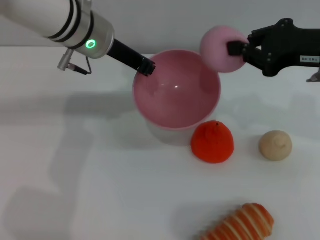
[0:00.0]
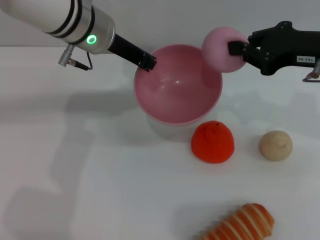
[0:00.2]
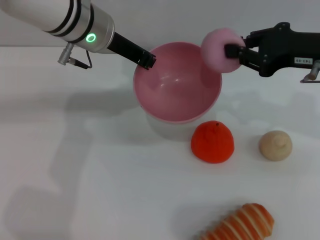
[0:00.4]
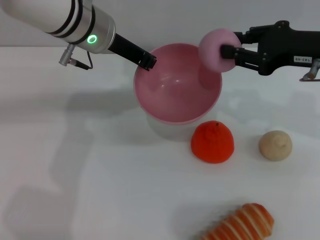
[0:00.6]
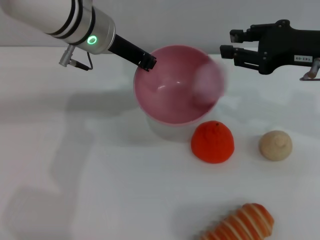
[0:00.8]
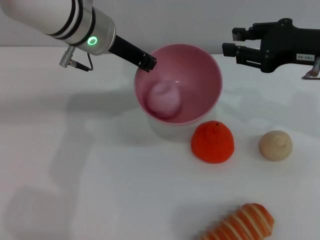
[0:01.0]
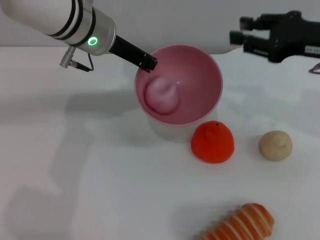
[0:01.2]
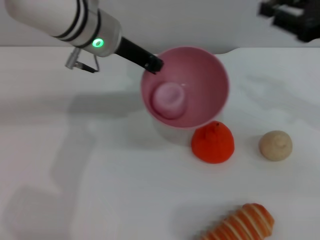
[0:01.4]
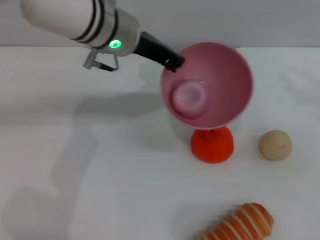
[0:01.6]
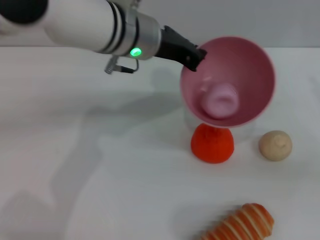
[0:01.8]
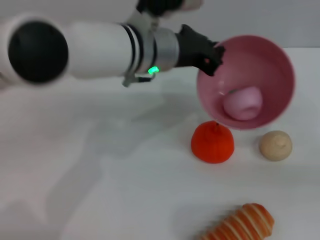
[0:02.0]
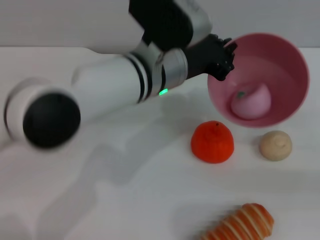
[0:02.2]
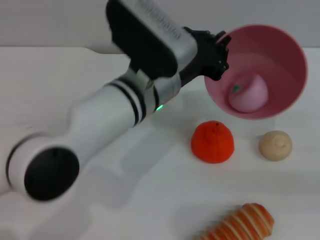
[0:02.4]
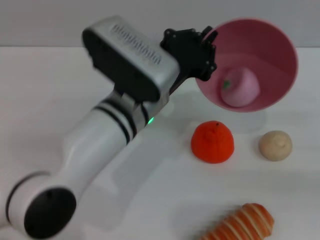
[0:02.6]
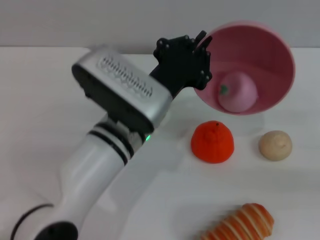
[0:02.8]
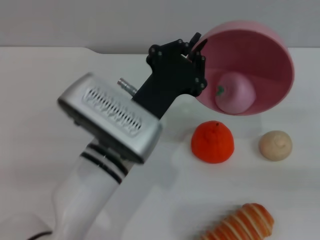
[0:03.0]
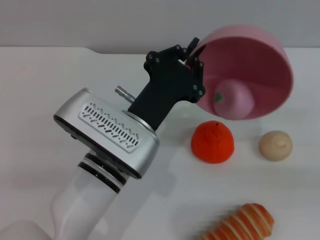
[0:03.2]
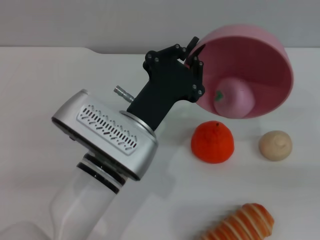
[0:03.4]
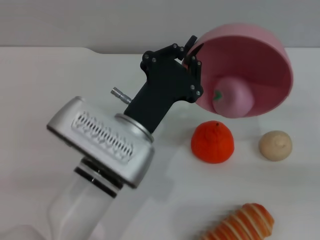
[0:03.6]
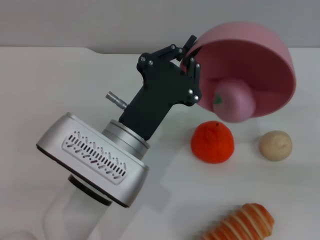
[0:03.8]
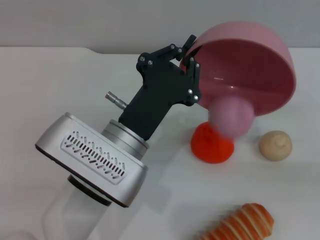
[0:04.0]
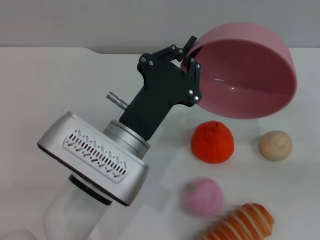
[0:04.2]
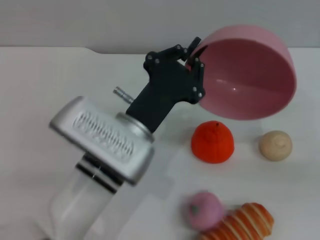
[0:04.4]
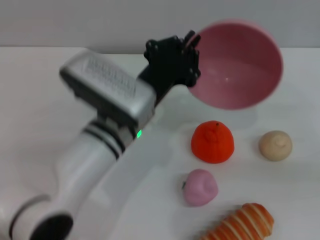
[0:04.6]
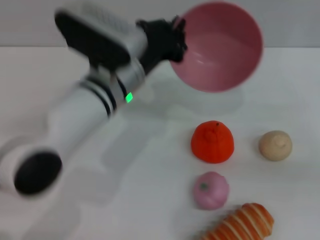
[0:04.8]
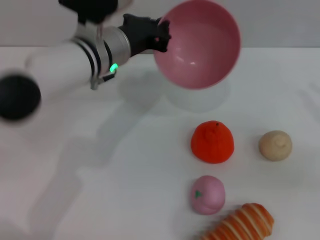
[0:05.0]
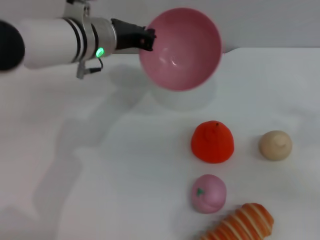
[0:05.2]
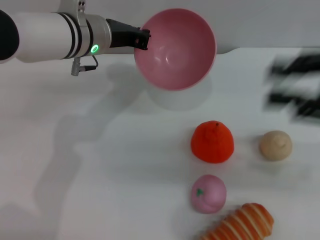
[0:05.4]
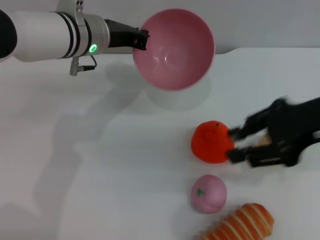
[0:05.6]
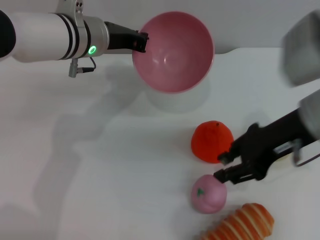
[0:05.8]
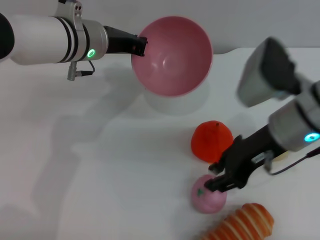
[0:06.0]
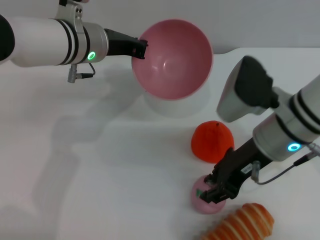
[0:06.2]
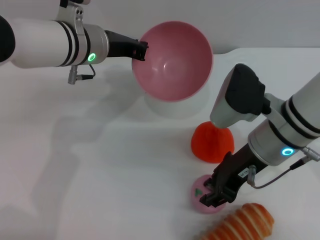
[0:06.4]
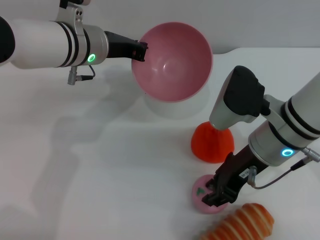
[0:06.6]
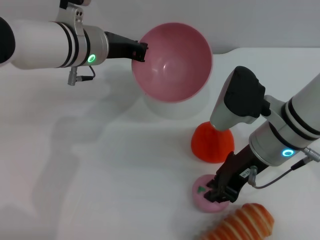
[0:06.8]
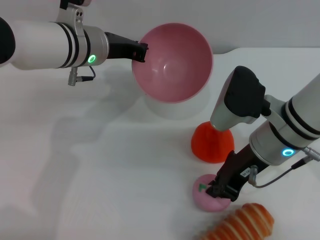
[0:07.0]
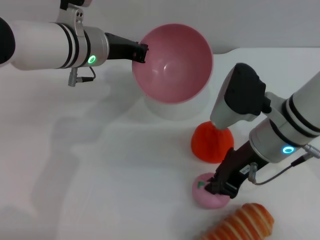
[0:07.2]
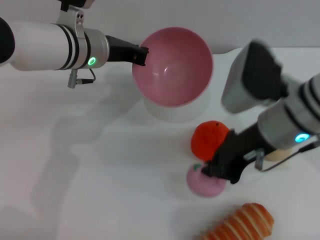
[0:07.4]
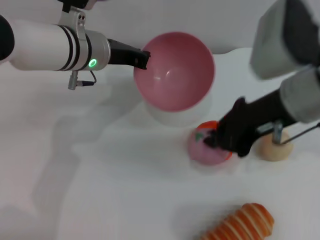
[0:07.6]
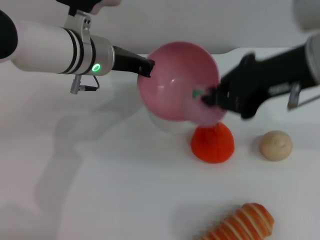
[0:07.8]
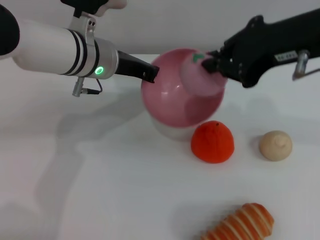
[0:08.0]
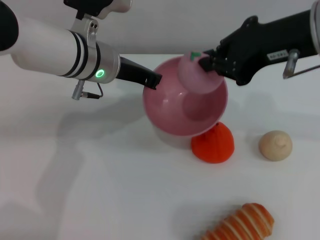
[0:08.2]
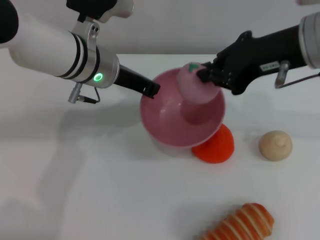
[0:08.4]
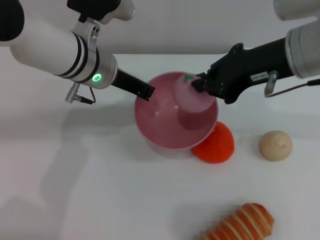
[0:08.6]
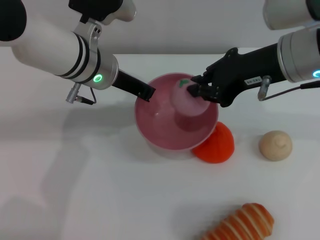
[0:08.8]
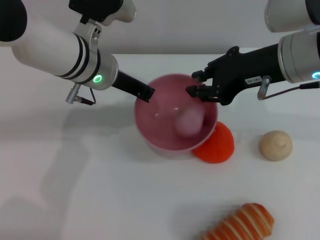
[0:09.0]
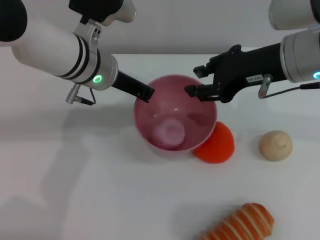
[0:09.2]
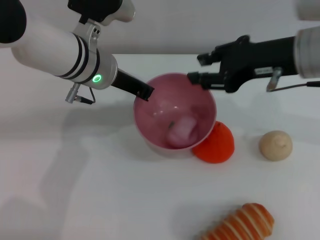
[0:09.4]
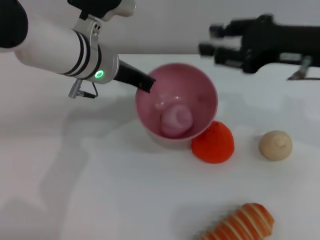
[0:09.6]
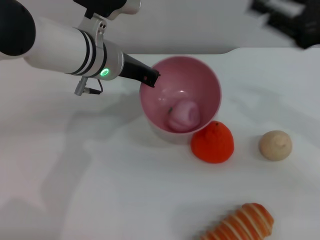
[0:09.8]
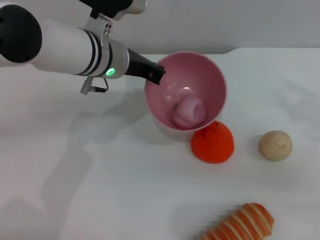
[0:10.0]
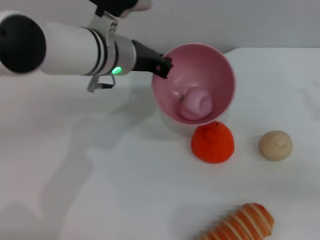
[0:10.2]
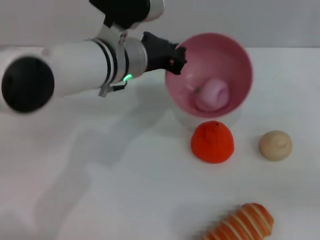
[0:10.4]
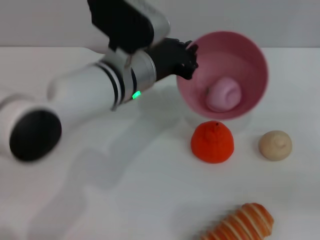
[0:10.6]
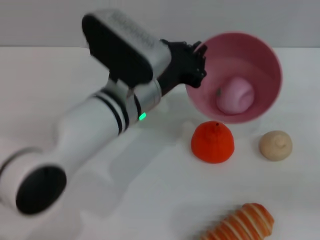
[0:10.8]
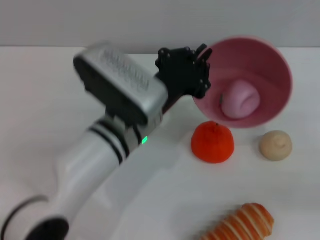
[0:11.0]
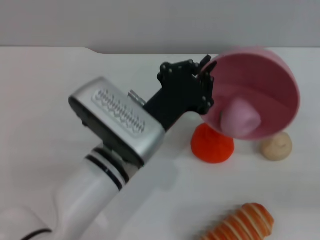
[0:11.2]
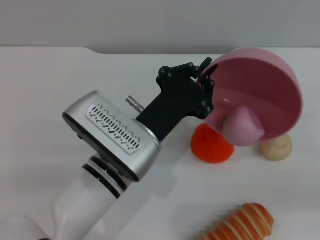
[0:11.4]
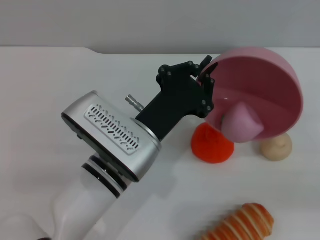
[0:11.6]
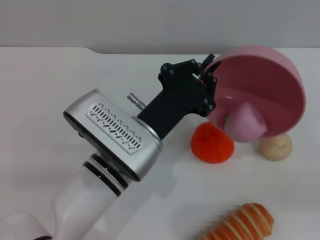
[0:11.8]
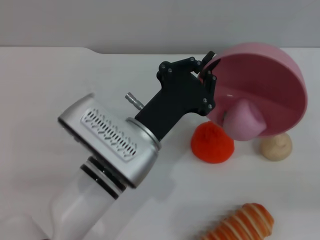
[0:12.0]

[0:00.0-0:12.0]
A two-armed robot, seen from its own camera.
Task of the whole recording: put the peach into the pink bowl and pour it out repeatedly.
Step, 0.0 to 1.0 s: Place the peach into the bowl.
Step, 1.2 to 4.4 s: Pour the peach out of bowl.
Step, 4.6 to 7.6 s: Pick up the peach with the right gripper.
Step, 7.8 to 9.0 s: Place the peach into the bowl.
0.0 to 1.6 s: The right gripper heads to the right, covering approximately 10 cm, and opens.
1.6 to 3.0 s: The right gripper shifts some 5 cm to the right, while the left gripper goes roughly 15 cm backward and downward.
3.0 to 4.4 s: The grippers stay close to where they were, moving slightly.
4.4 to 6.0 s: The left gripper heads forward and upward, covering approximately 20 cm; the right gripper travels to the left by roughly 25 cm.
6.0 to 7.6 s: The right gripper shifts some 5 cm upward, and closes.
9.0 to 10.4 s: The right gripper travels to the right, downward and backward by roughly 25 cm, and opens.
10.4 to 12.0 s: The left gripper is displaced backward and downward by roughly 15 cm.

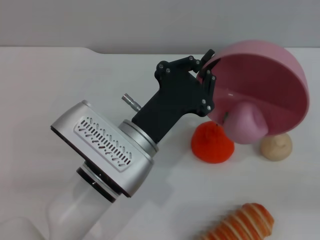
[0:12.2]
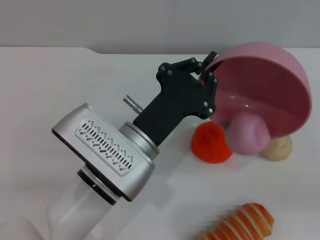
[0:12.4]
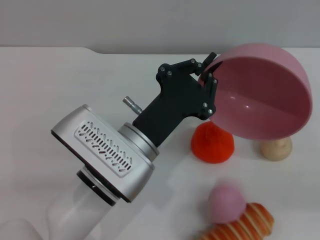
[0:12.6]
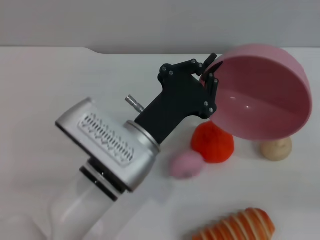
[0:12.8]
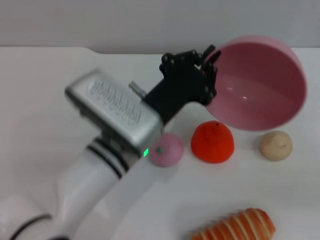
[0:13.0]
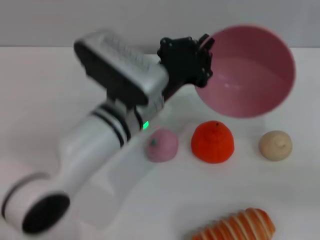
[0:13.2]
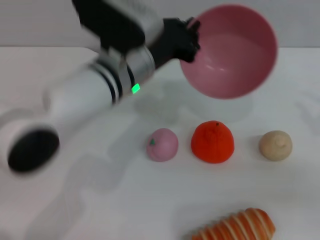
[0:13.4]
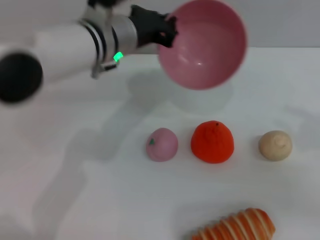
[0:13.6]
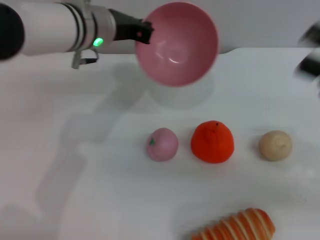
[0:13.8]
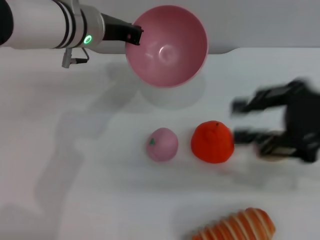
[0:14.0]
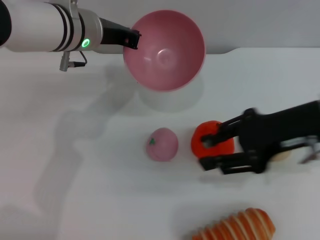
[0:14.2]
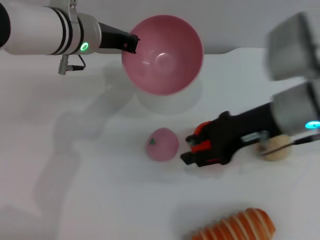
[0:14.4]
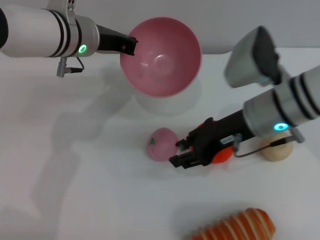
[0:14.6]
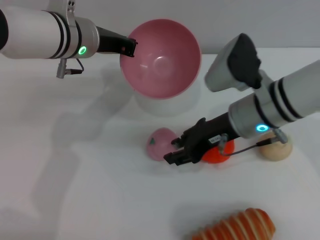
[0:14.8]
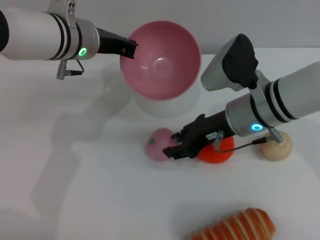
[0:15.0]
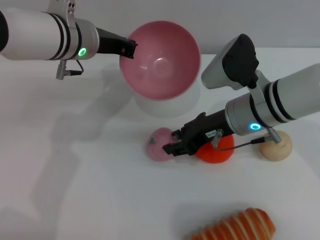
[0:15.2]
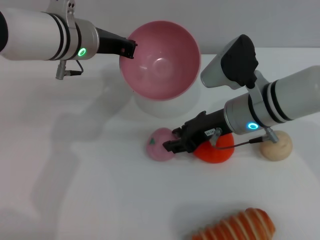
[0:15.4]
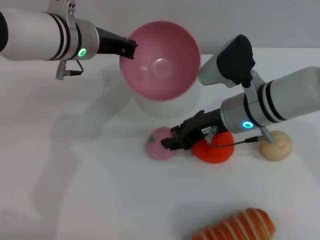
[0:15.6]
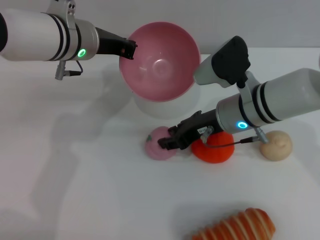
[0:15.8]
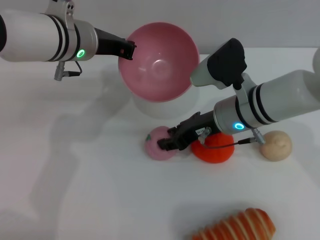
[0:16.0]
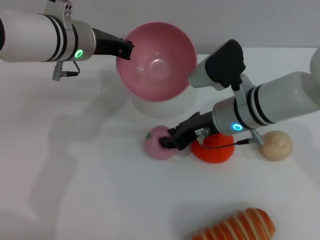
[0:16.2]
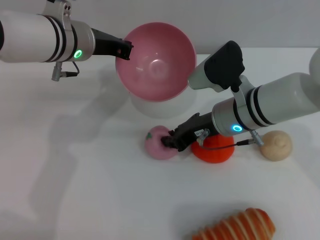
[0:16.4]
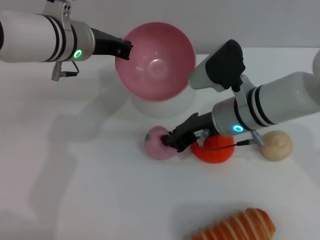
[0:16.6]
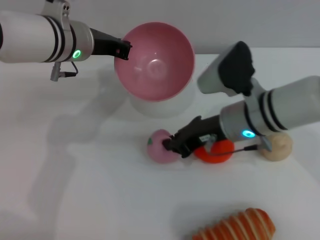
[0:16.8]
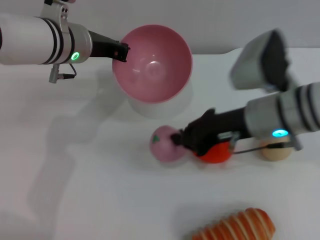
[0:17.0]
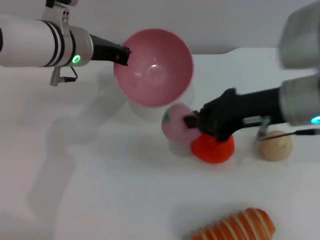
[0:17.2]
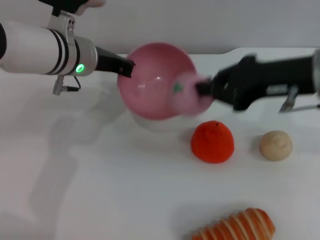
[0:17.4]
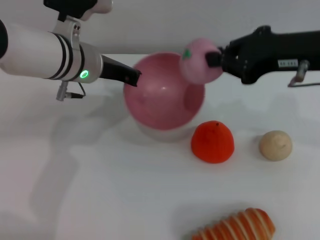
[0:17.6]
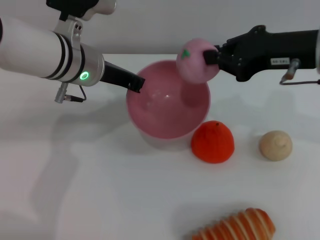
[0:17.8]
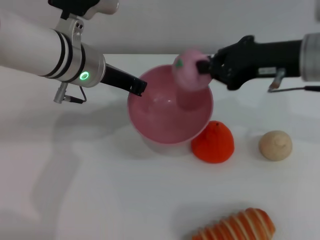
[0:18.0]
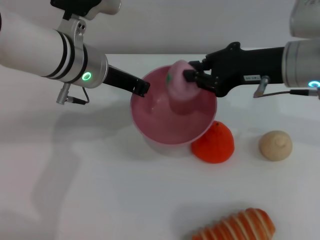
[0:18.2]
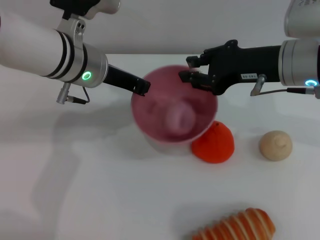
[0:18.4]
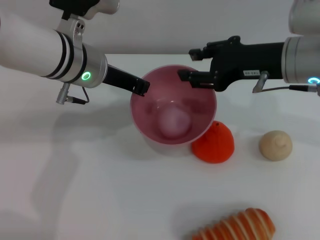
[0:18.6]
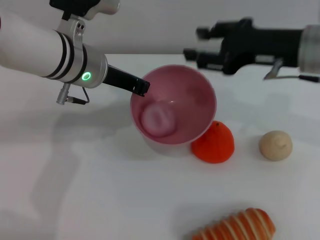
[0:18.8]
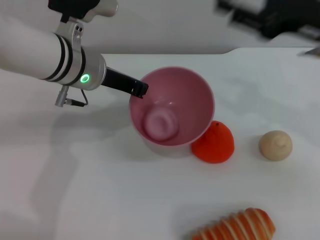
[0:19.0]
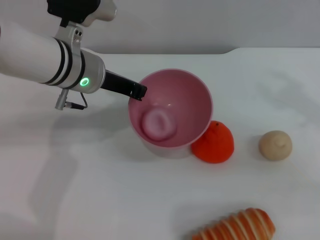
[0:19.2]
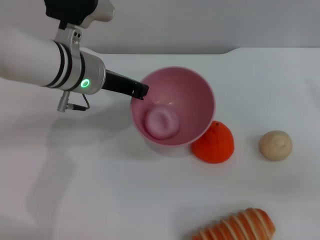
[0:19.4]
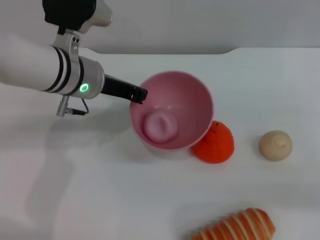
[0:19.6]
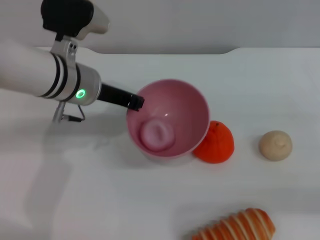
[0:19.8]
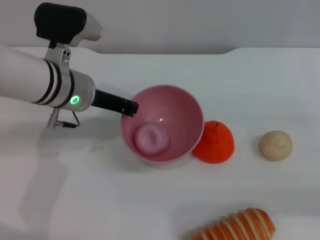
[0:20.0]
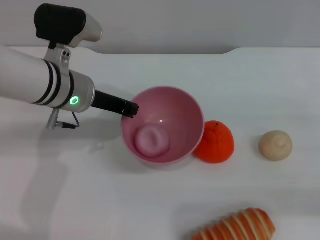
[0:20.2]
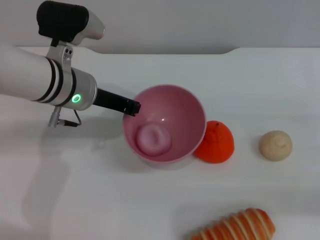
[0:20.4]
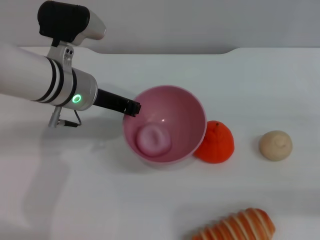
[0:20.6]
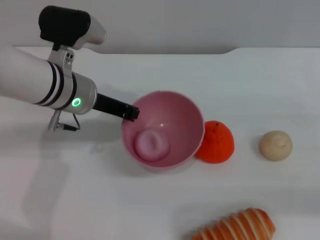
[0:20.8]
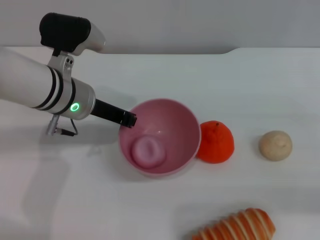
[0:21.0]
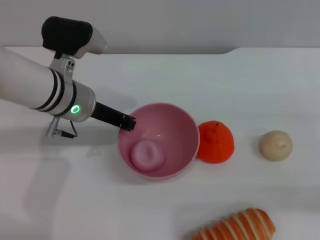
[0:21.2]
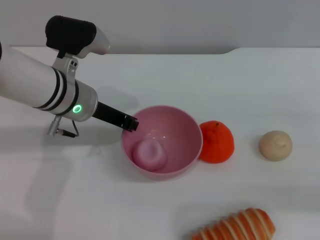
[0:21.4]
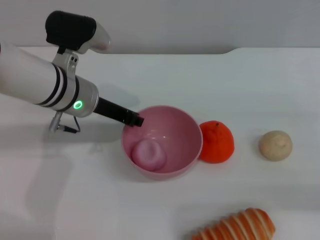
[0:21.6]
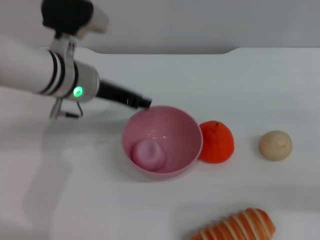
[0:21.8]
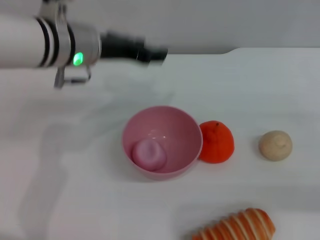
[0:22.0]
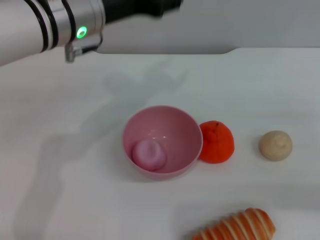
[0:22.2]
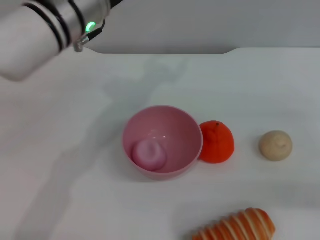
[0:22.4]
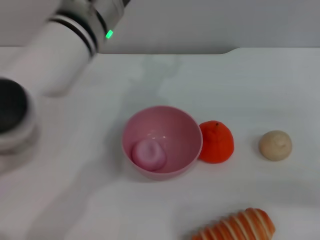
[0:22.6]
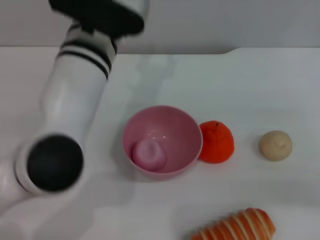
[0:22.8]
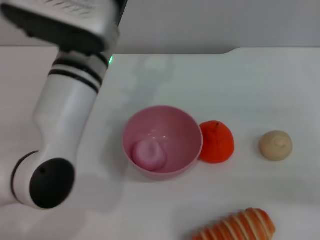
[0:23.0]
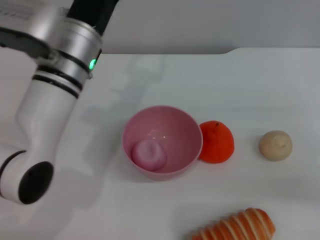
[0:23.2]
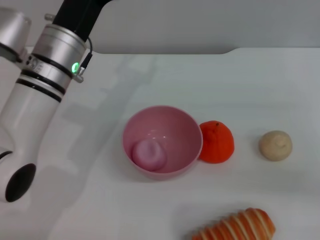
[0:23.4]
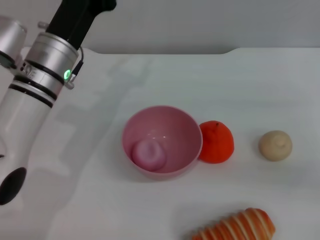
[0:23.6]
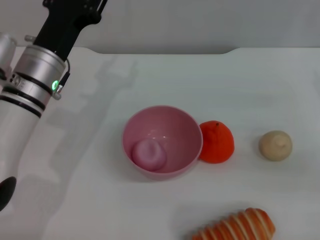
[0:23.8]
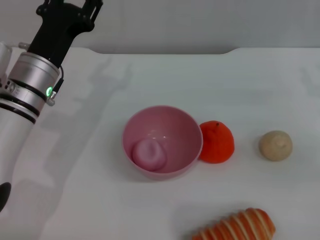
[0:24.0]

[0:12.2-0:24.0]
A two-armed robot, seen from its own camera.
Task of the whole recording: put the peach into the pink bowl and pour it out repeatedly.
Step, 13.0 to 17.2 s: Pick up the peach with the right gripper.
Step, 17.4 to 18.6 s: Place the peach into the bowl.
Step, 19.0 to 21.8 s: Place the bowl on the table.
12.2 to 13.6 s: The left gripper is displaced forward and upward by some 15 cm. The right gripper moves to the left, roughly 5 cm.
13.6 to 15.2 s: The left gripper shifts by some 5 cm; the right gripper goes about 25 cm to the left and forward.
15.2 to 16.6 s: The right gripper closes up.
16.6 to 18.2 s: The right gripper is displaced upward and to the right by roughly 10 cm.
18.2 to 19.6 s: The right gripper shifts roughly 20 cm to the right and backward, and opens up.
19.6 to 21.0 s: There are only small adjustments of the grippers.
21.0 to 22.6 s: The left gripper heads upward and to the right, covering approximately 10 cm, and opens its fingers.
22.6 to 24.0 s: The left gripper moves downward and to the left, approximately 15 cm.
